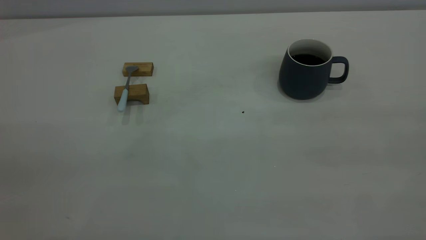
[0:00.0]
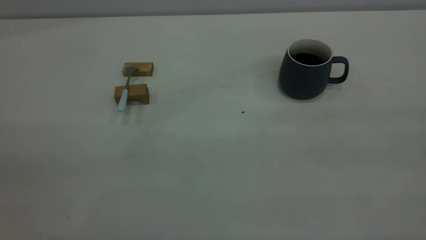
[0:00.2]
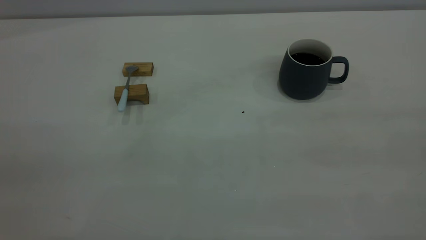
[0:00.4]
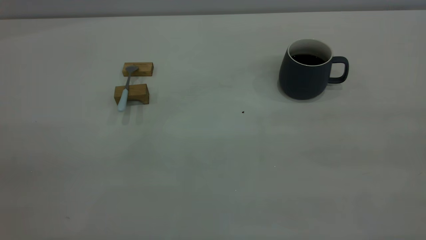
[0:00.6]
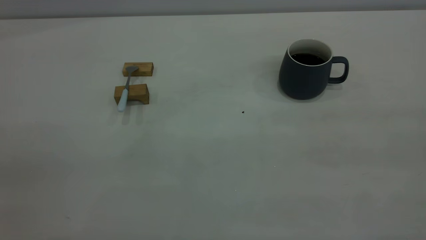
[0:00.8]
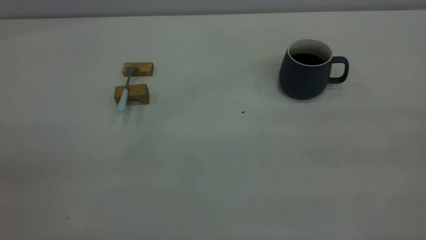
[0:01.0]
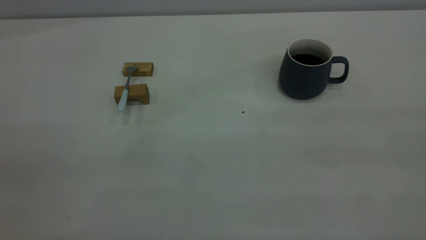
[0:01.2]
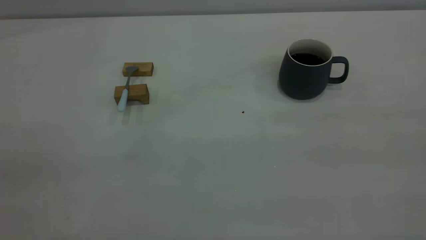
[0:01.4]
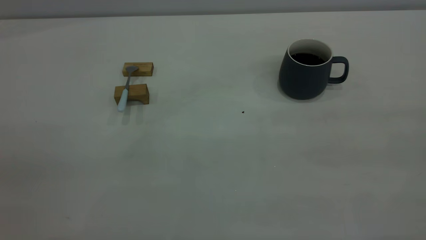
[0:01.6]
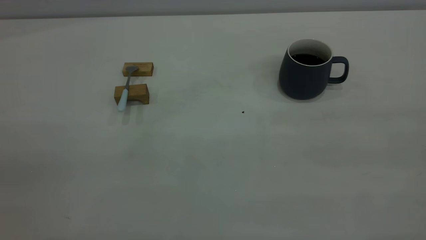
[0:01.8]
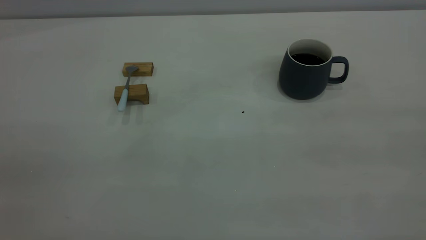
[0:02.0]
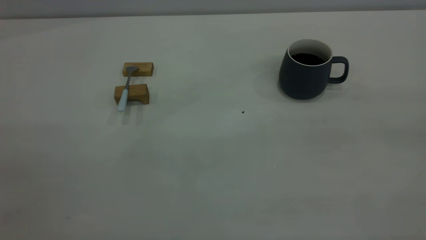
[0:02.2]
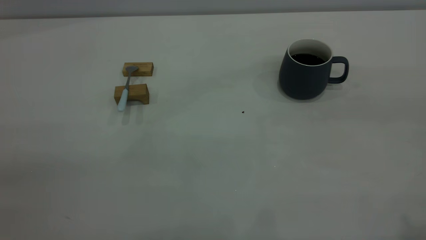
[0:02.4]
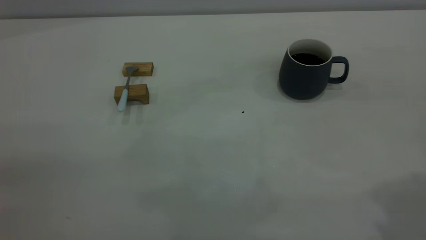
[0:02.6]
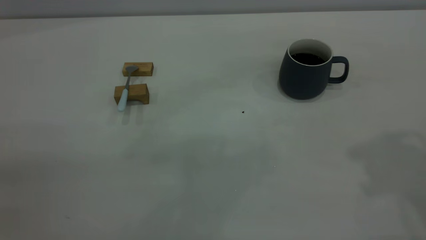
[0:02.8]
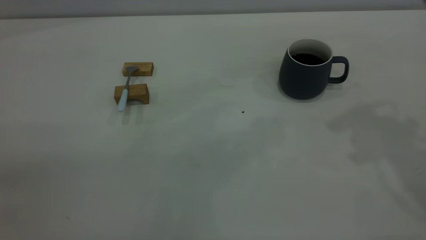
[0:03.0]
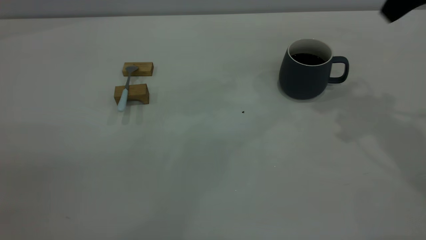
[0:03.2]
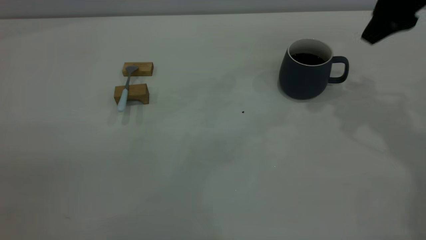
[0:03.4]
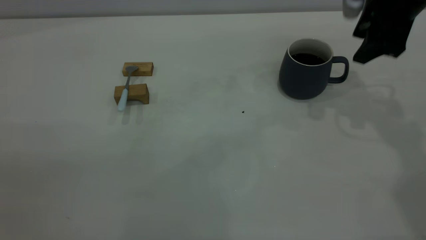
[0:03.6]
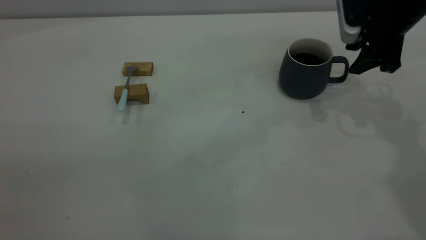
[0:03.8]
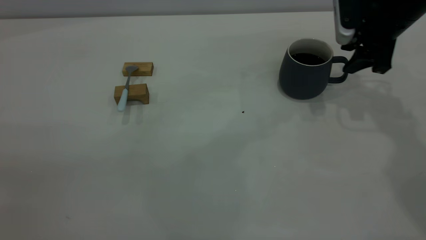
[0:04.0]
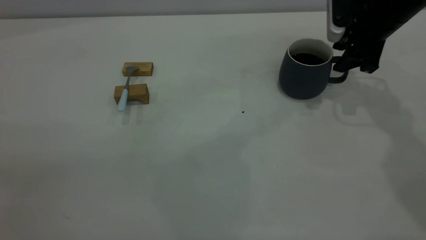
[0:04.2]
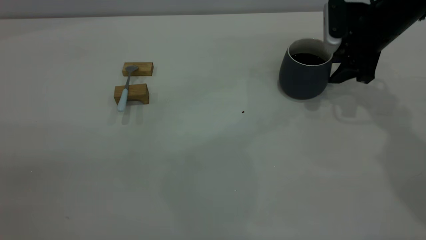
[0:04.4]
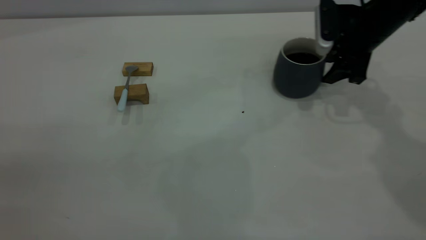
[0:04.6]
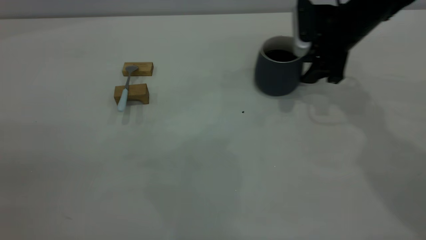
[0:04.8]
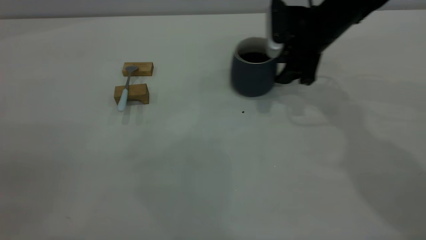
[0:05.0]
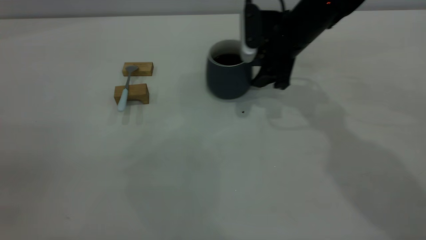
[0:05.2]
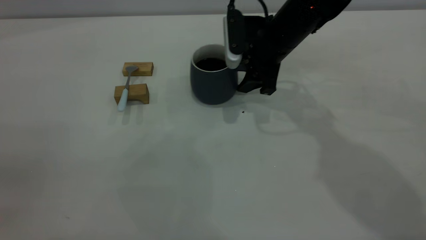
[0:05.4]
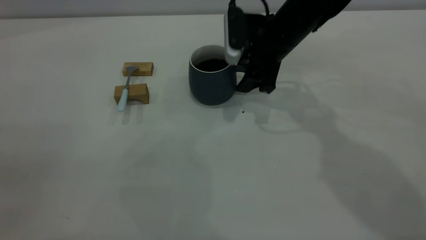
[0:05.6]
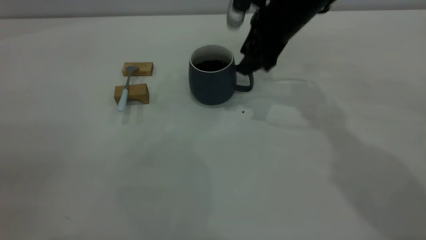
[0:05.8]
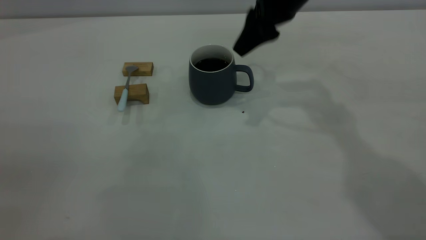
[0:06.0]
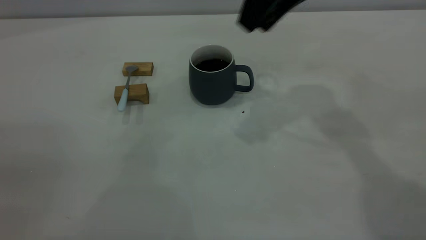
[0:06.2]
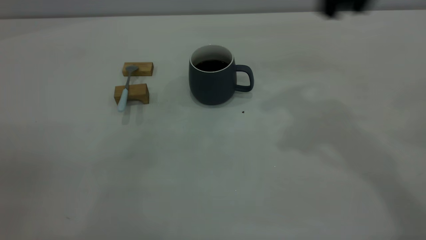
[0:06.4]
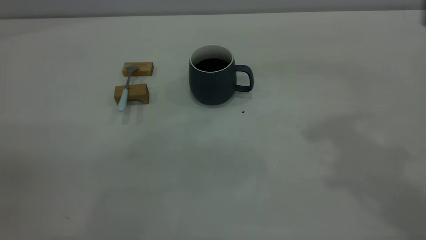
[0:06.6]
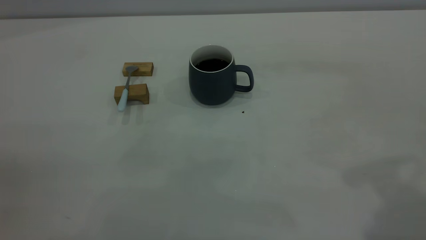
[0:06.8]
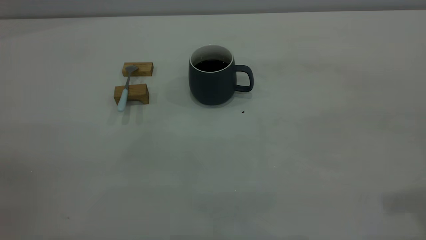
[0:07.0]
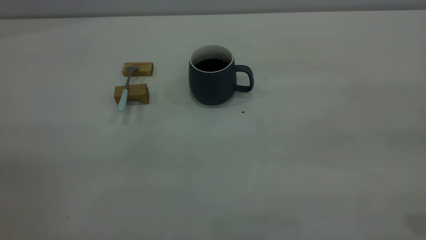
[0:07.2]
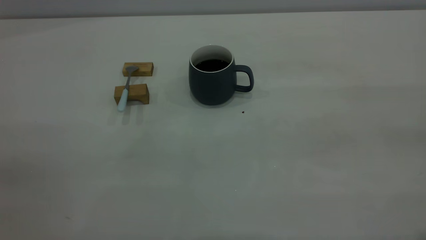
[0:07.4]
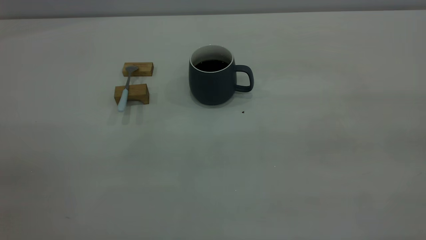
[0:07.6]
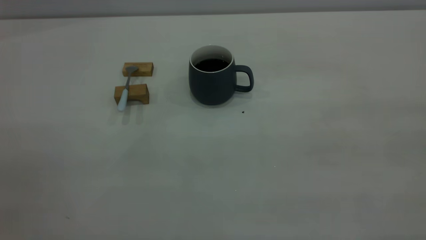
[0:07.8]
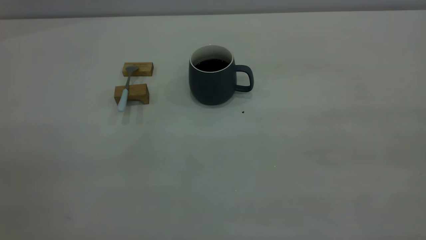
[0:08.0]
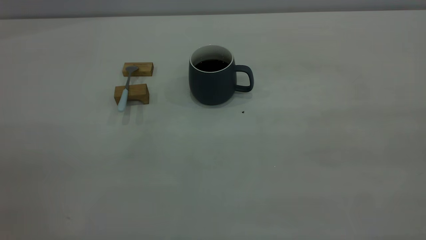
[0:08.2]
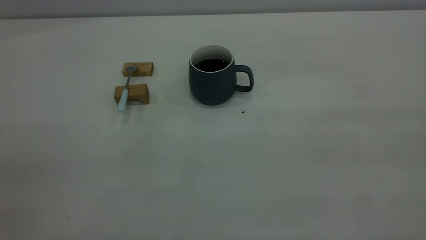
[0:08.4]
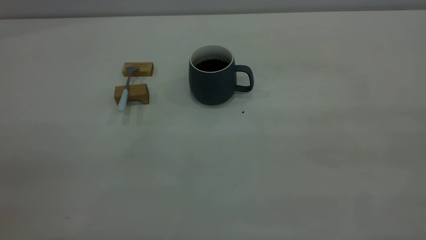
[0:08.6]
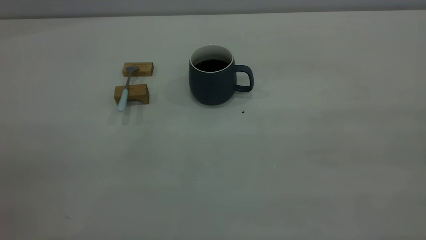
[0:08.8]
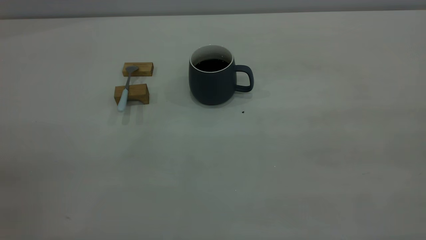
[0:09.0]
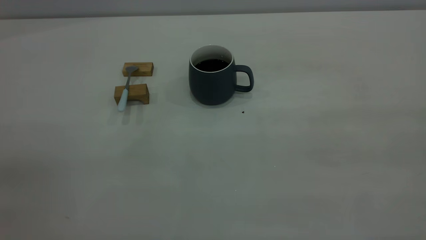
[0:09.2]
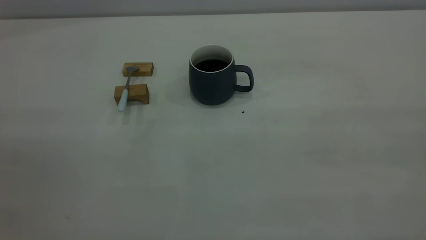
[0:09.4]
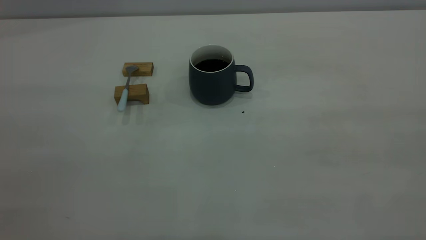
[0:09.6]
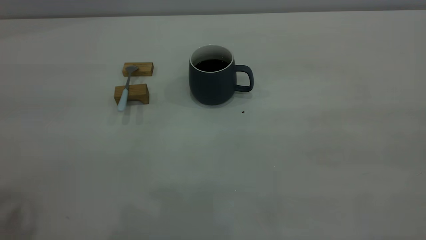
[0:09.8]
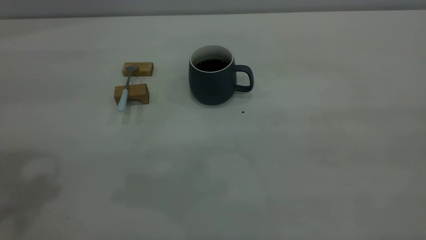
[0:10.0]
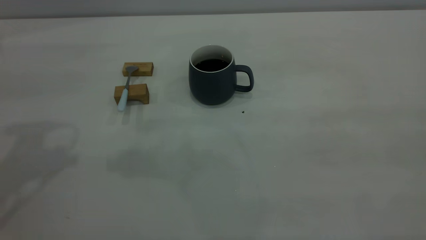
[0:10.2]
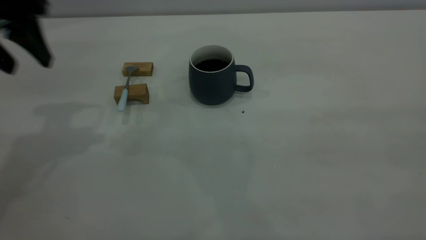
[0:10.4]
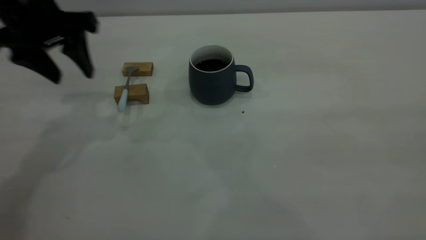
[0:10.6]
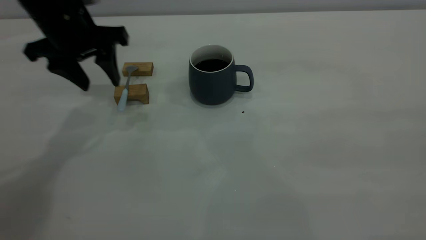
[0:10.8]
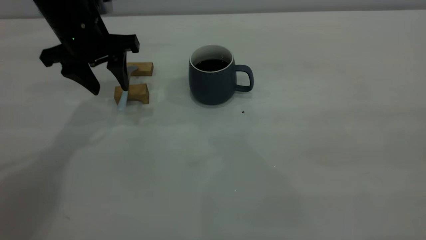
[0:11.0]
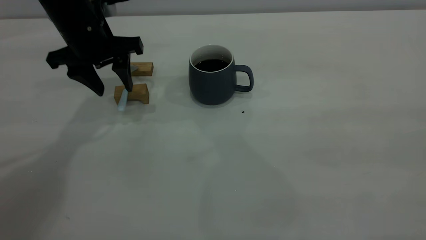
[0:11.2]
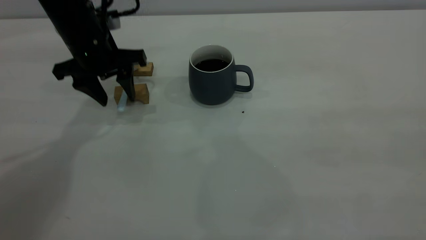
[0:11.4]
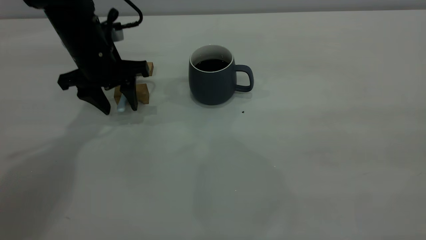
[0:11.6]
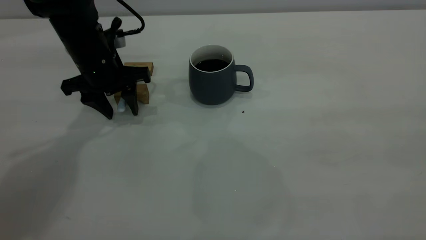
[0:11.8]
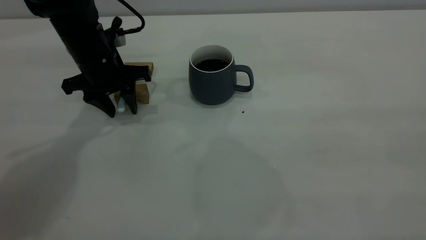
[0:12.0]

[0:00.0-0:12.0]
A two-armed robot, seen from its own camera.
Step, 0:00.0 to 0:06.0: Move the cup with coffee to the center of view.
0:00.0 to 0:01.6: Both grippers stay about where they are.
0:03.0 to 0:04.4: The right gripper travels downward and forward by about 25 cm, and closes up.
0:04.4 to 0:06.0: The right gripper travels to the left and upward by roughly 20 cm.
0:06.0 to 0:07.6: The right gripper travels backward and to the right by some 40 cm.
0:09.0 to 0:10.4: The left gripper travels forward by roughly 35 cm.
0:10.4 to 0:12.0: The left gripper is displaced downward and forward by roughly 15 cm.

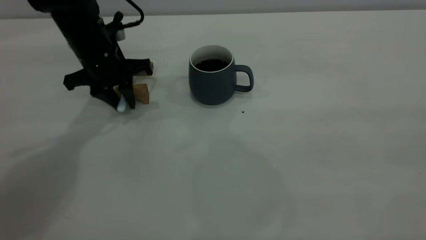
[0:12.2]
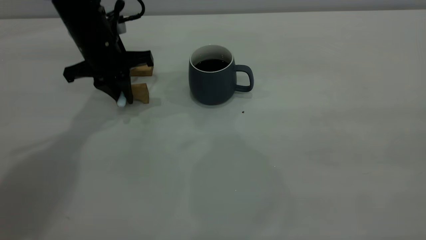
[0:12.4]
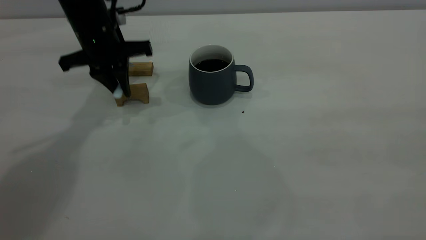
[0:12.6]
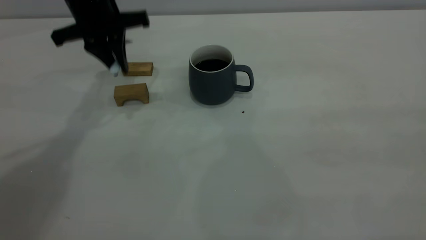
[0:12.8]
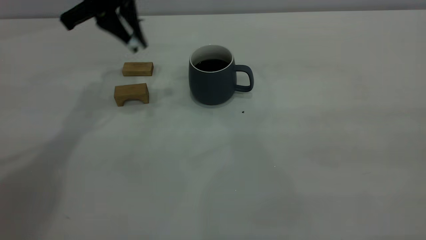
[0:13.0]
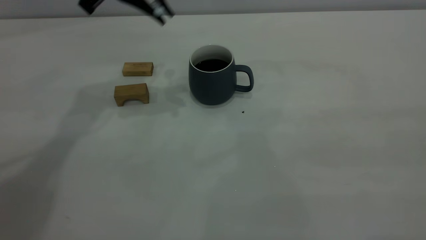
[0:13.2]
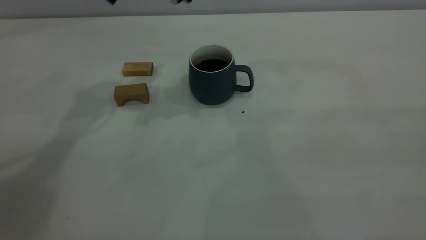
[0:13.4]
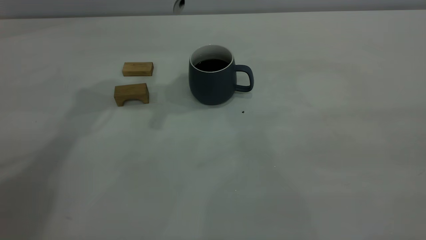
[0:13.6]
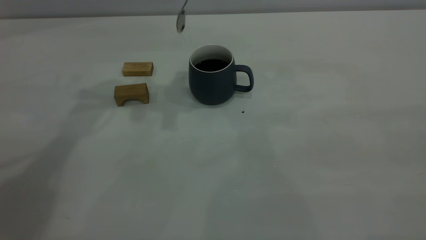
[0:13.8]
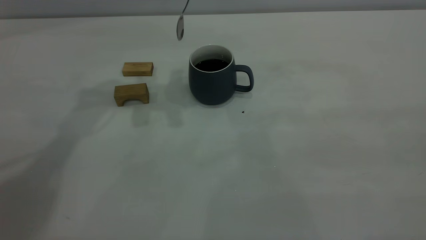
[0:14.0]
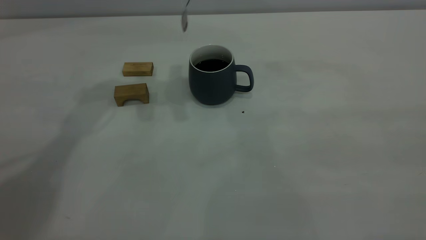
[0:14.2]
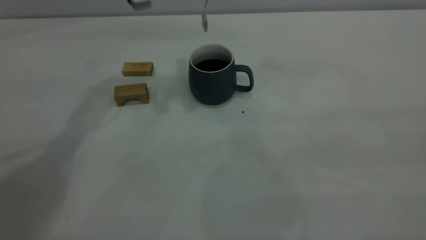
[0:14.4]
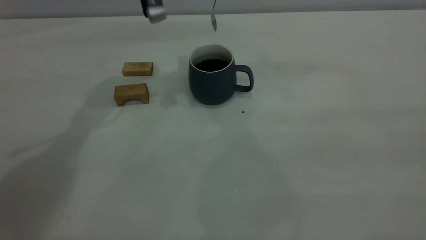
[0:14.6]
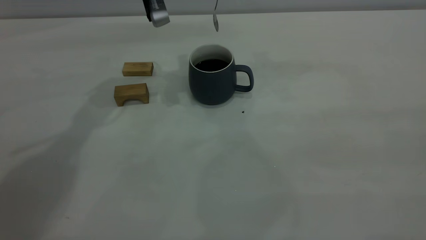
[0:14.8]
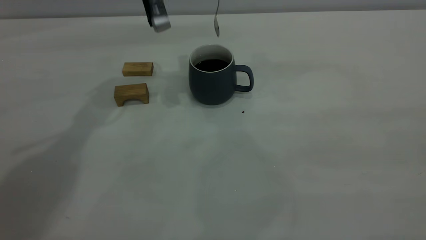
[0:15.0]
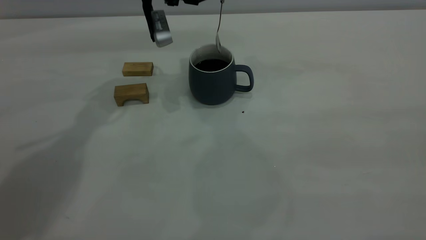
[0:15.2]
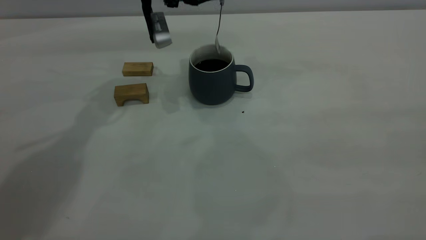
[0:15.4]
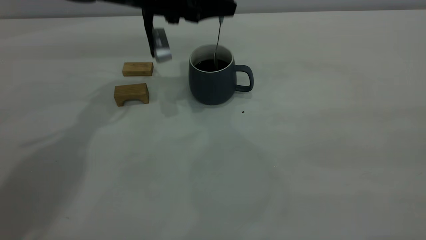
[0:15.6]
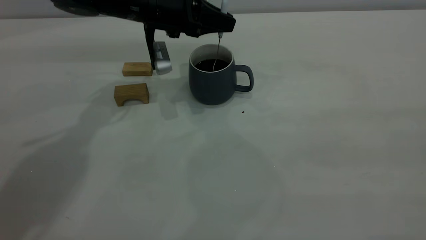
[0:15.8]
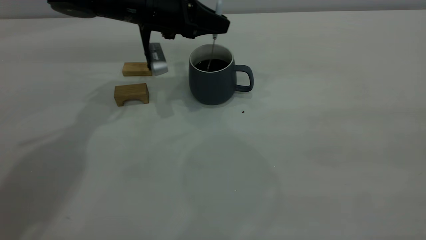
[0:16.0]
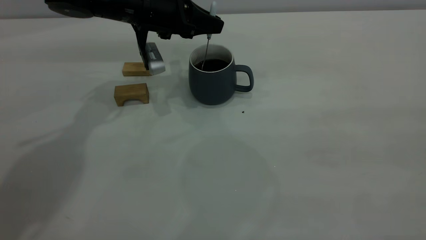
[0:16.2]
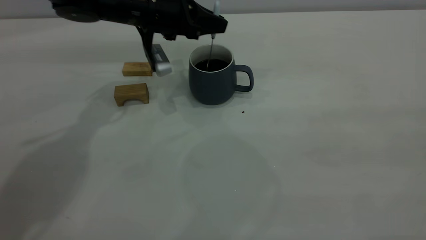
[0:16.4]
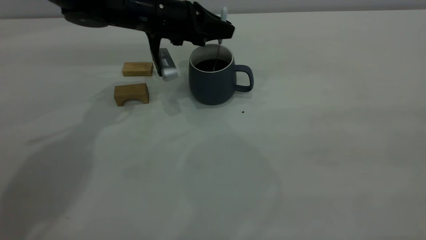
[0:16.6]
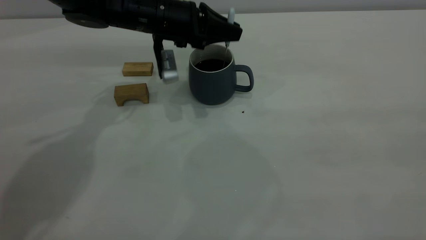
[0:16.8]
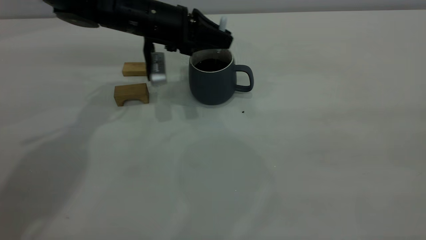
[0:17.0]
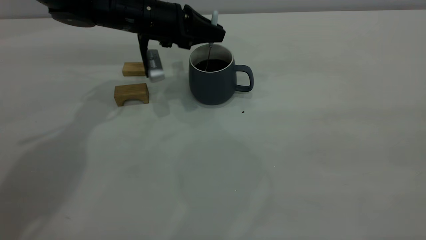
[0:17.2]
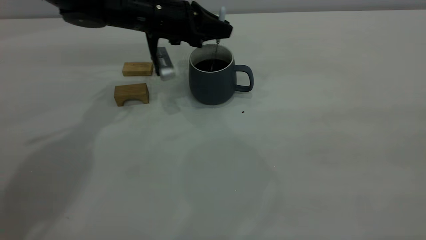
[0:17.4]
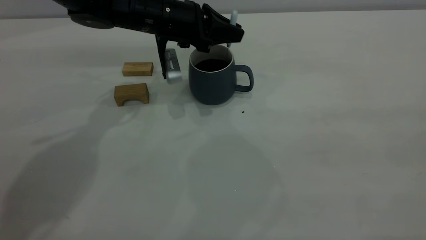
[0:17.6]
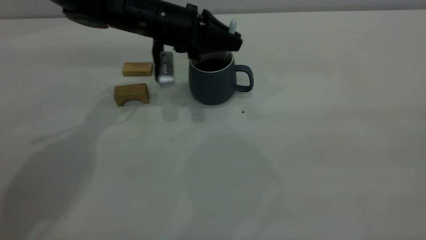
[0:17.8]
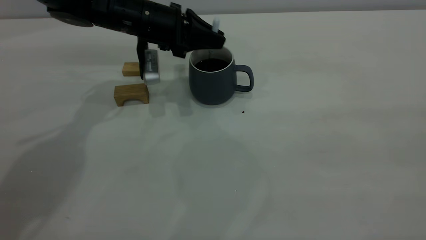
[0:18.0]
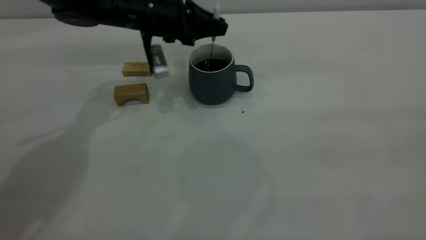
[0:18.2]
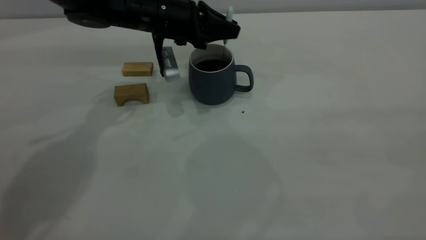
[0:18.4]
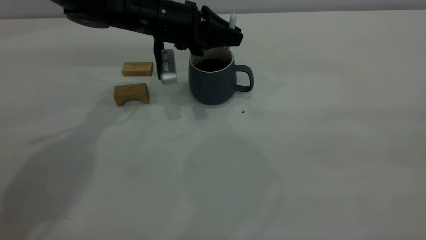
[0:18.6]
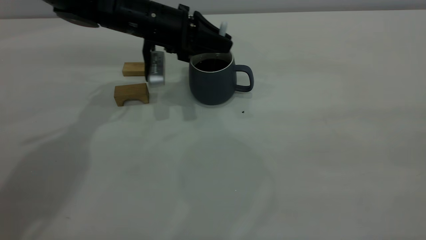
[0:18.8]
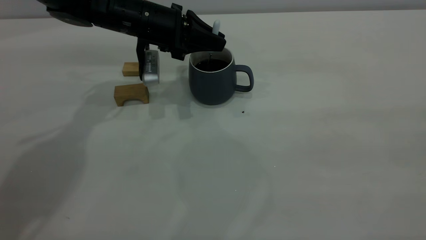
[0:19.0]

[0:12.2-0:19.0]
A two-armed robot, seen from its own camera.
0:12.2 to 0:13.6: The left gripper goes about 15 cm upward.
0:13.6 to 0:15.0: The left gripper heads downward, covering roughly 10 cm.
0:15.0 to 0:16.2: The left gripper is displaced downward by roughly 5 cm.
0:16.2 to 0:19.0: The grippers move only a little.
